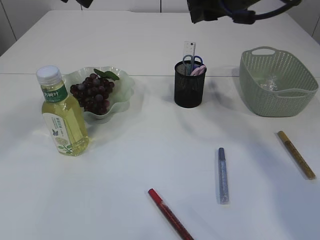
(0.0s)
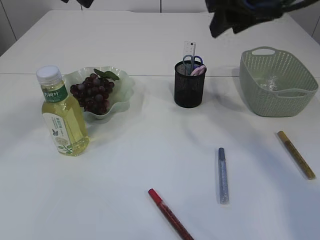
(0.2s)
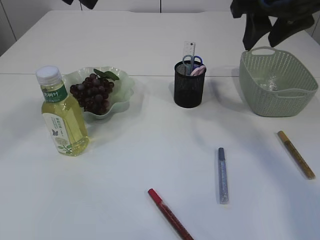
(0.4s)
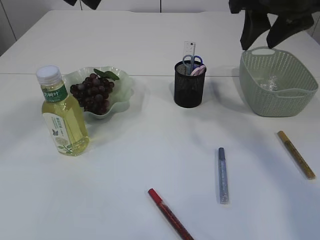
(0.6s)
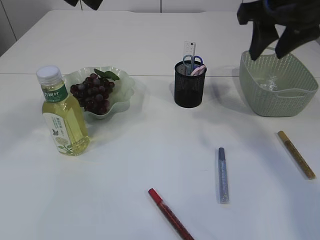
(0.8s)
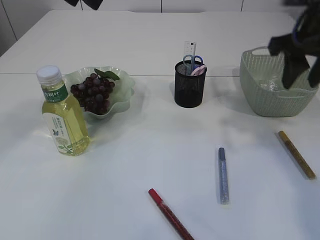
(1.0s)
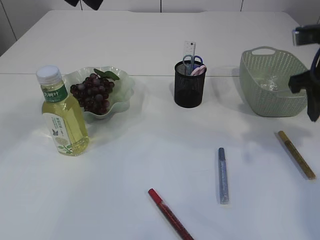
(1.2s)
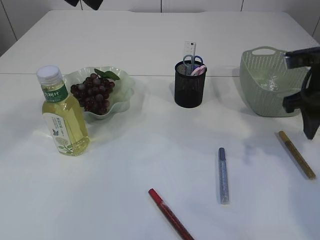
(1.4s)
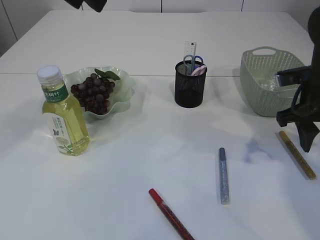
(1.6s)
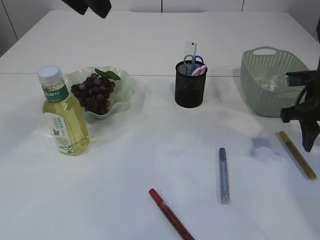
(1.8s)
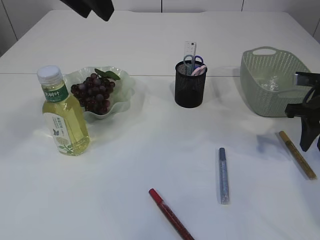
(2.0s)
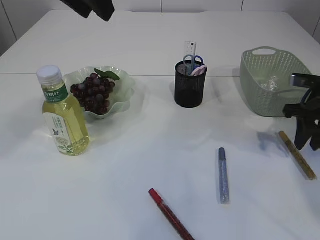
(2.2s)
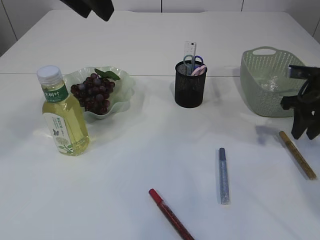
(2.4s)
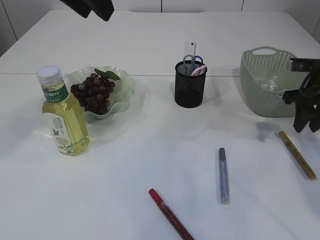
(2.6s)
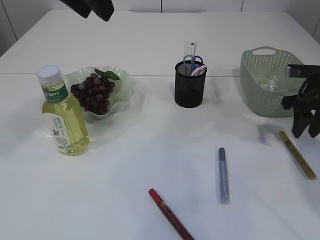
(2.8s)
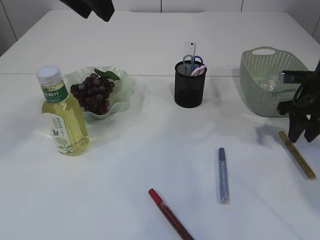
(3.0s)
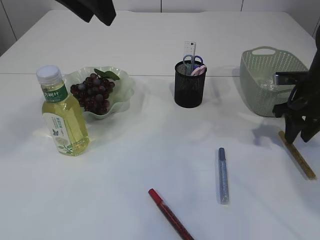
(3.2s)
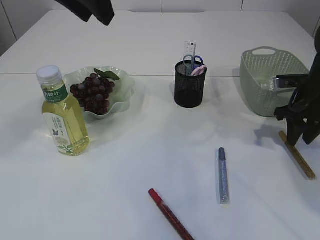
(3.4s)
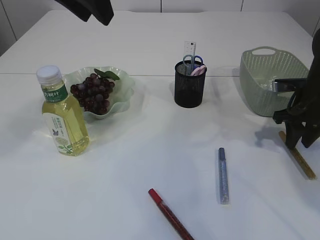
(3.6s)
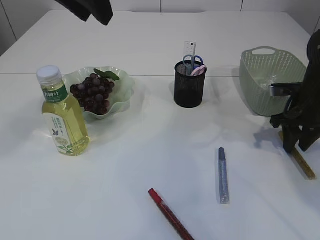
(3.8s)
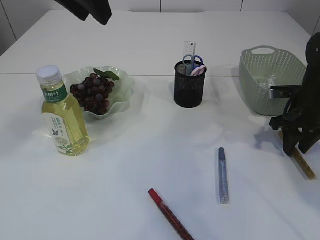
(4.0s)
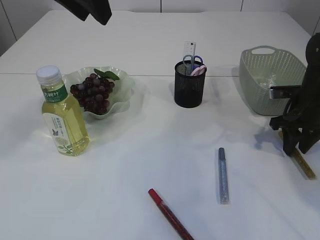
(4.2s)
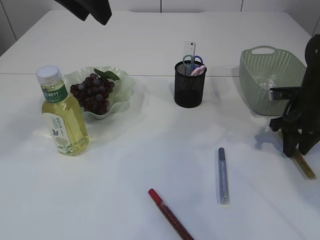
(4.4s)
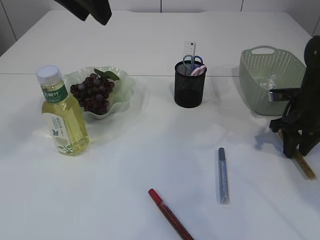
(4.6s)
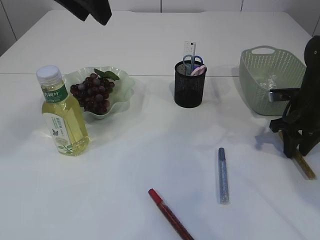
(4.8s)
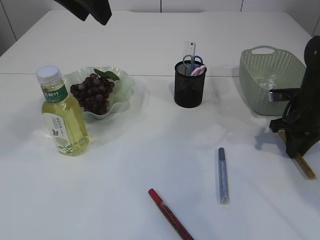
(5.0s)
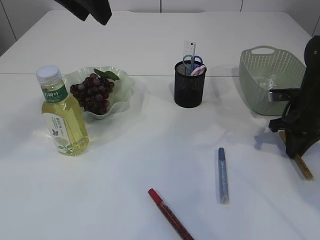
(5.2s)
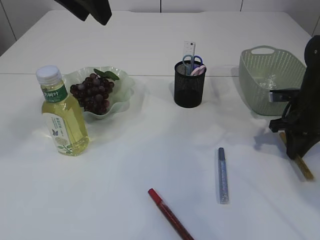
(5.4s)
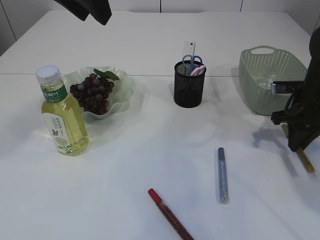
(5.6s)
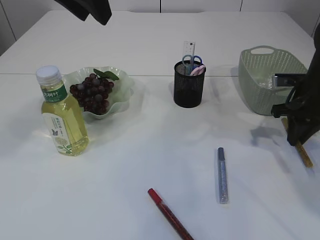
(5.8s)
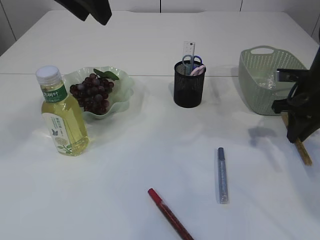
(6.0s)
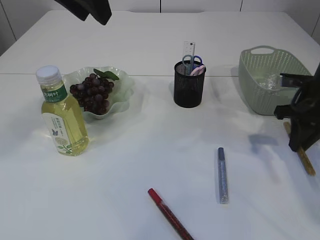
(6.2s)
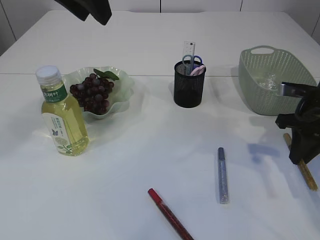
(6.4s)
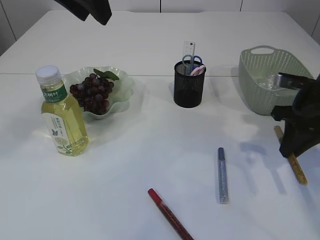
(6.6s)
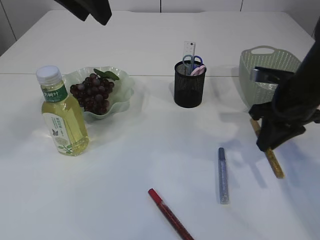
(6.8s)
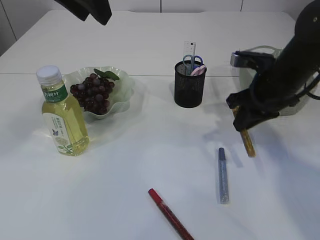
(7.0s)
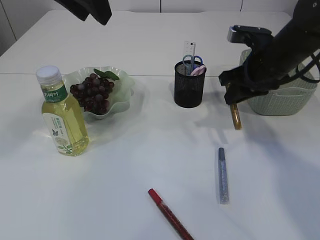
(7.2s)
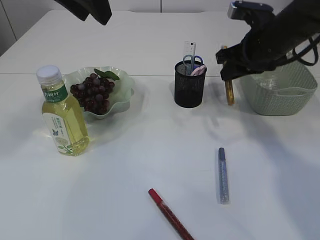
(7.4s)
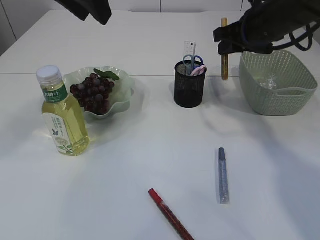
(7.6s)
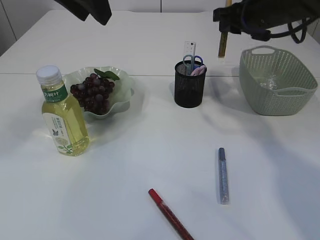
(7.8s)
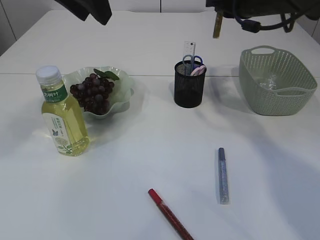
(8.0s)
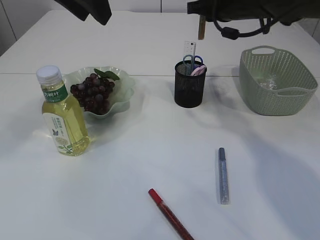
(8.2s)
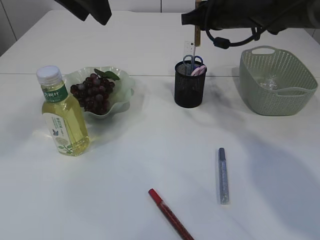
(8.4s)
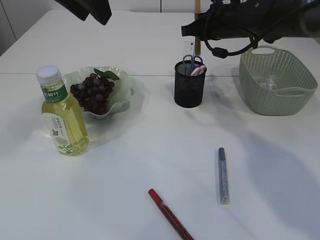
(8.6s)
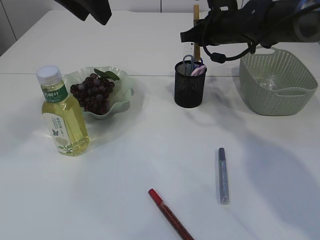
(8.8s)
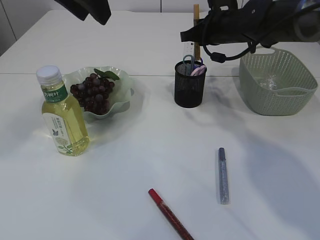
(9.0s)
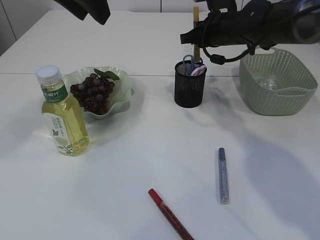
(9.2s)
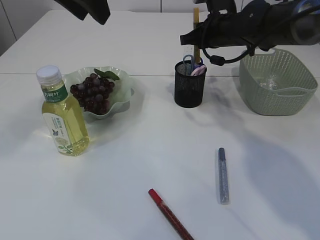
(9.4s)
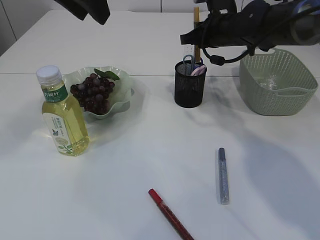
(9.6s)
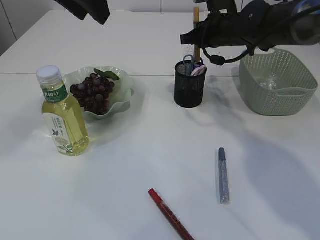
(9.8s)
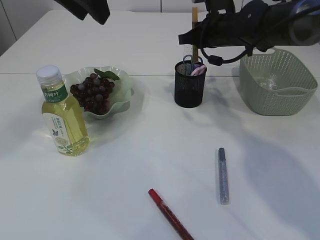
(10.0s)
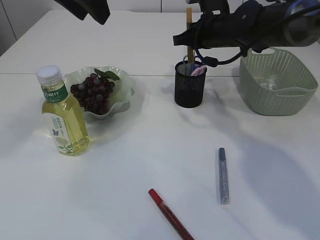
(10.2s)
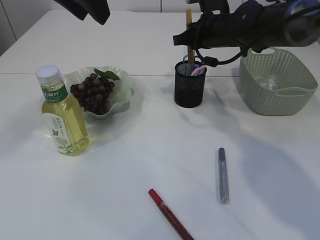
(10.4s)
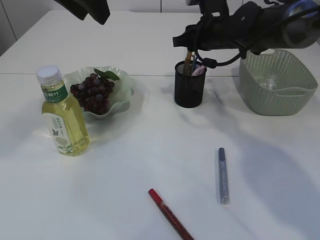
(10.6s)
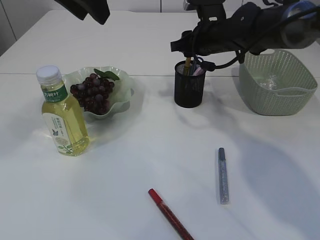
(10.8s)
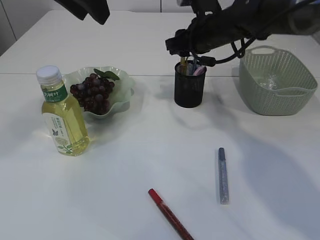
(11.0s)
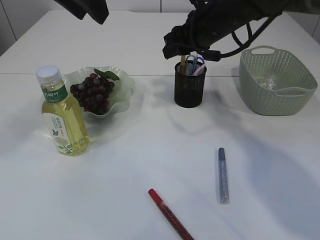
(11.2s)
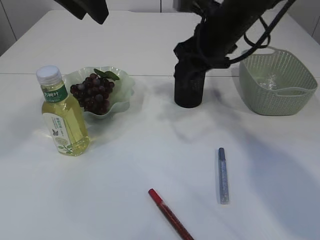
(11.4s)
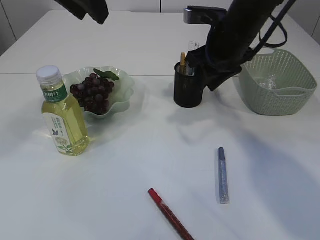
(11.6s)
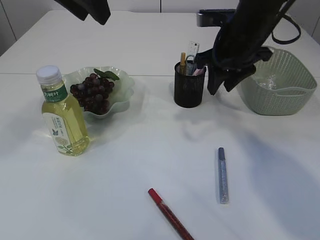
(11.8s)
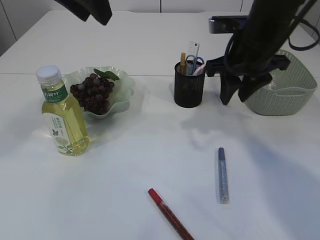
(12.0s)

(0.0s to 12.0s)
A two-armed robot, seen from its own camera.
Step, 0.0s - 5.8s: pick up the yellow glue.
Step, 6.0s - 11.6s: place the yellow glue into the pen holder.
0.0s - 1.6s: The right gripper goes roughly 20 cm downward, to the right and backward.
1.6s - 3.0s: The right gripper heads forward and to the right, covering some 10 cm.
3.0s - 4.4s: The grippers stay close to where they were, moving slightly.
4.4s - 6.0s: The right gripper closes.
6.0s - 7.6s: The right gripper moves to the left and upward, some 15 cm.
7.6s - 9.0s: The right gripper shifts some 5 cm forward.
9.0s - 10.4s: The grippers make only small movements.
10.4s - 12.0s: The right gripper moves backward, approximately 10 cm, and opens up.

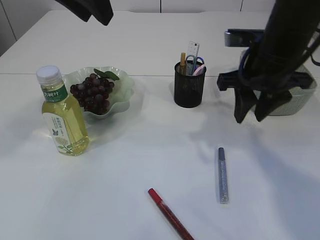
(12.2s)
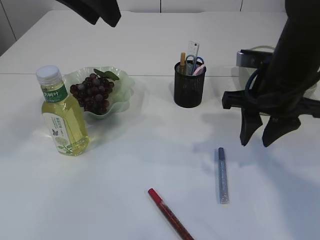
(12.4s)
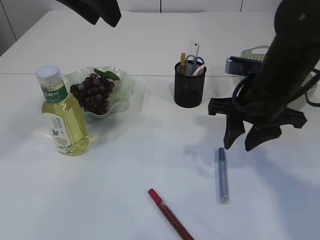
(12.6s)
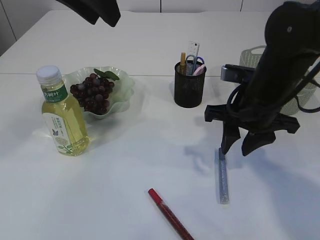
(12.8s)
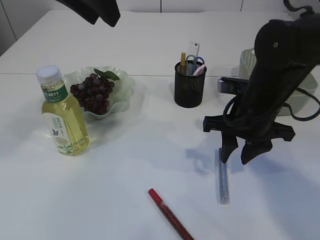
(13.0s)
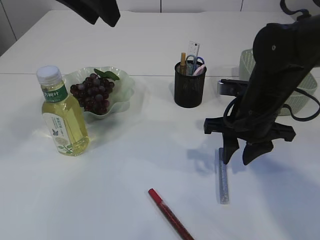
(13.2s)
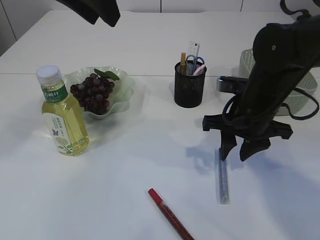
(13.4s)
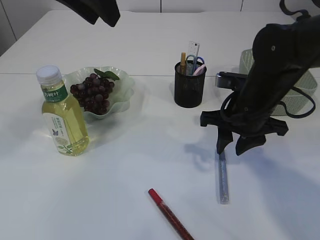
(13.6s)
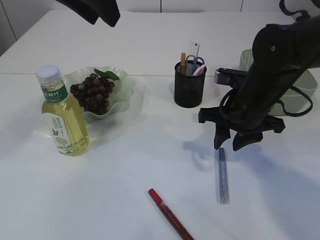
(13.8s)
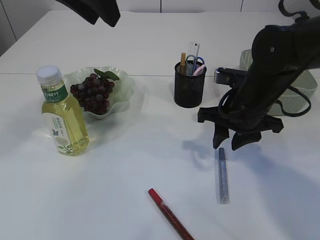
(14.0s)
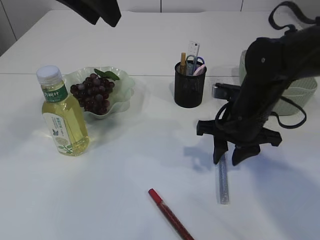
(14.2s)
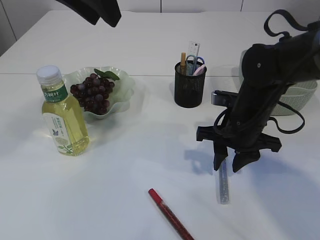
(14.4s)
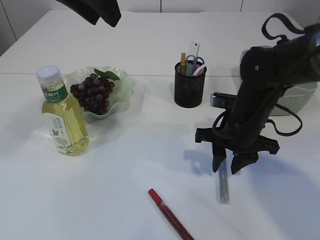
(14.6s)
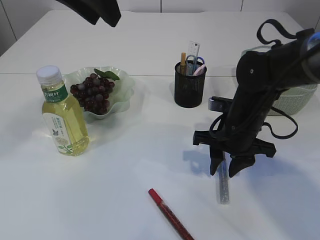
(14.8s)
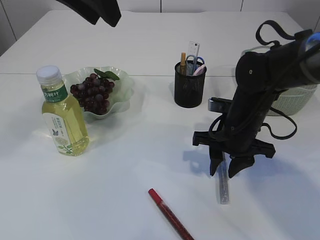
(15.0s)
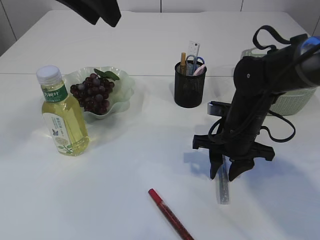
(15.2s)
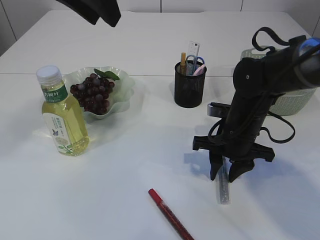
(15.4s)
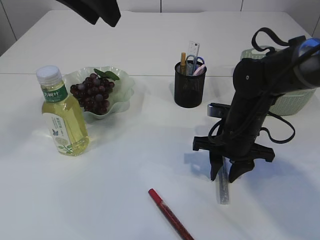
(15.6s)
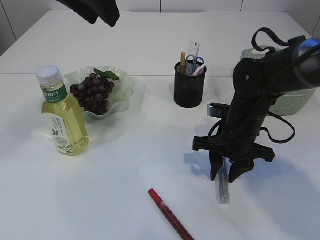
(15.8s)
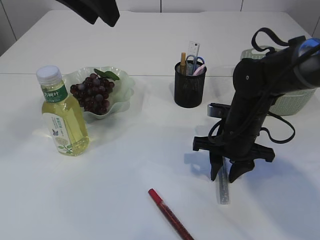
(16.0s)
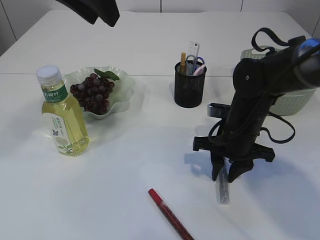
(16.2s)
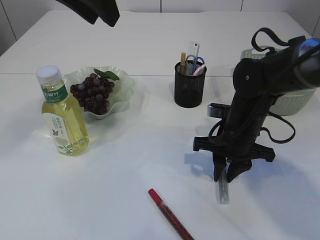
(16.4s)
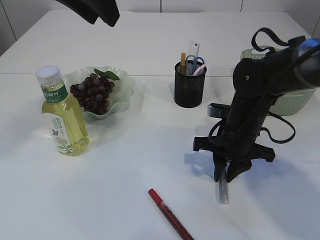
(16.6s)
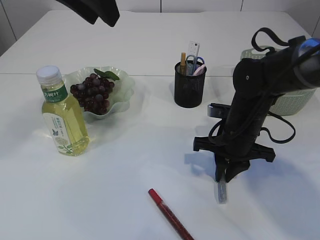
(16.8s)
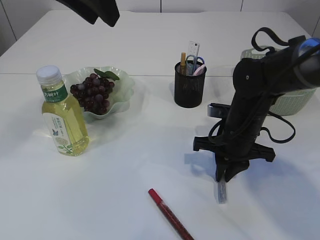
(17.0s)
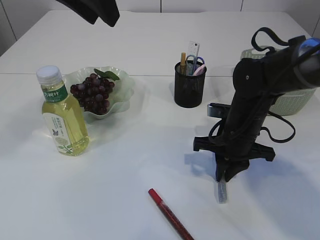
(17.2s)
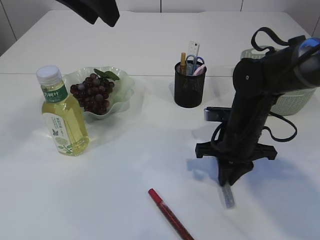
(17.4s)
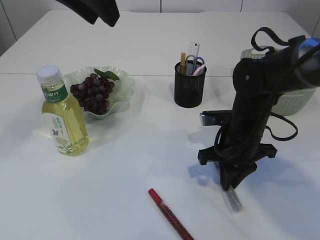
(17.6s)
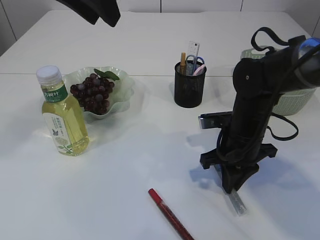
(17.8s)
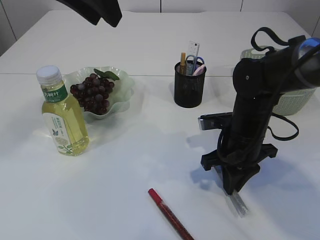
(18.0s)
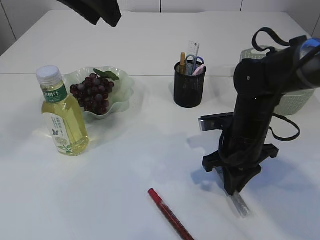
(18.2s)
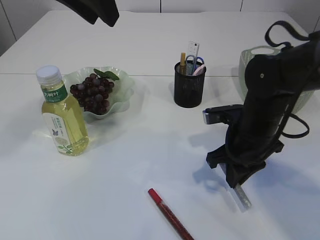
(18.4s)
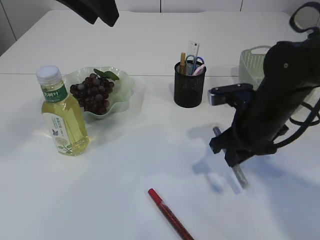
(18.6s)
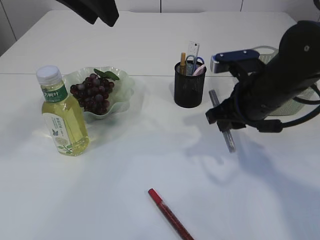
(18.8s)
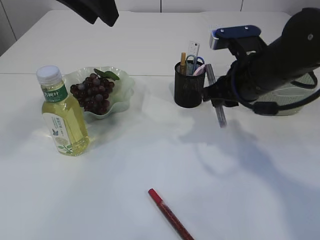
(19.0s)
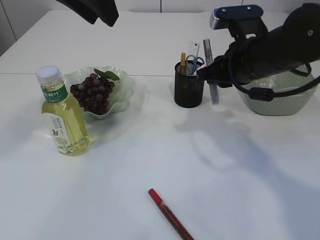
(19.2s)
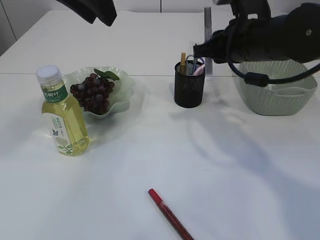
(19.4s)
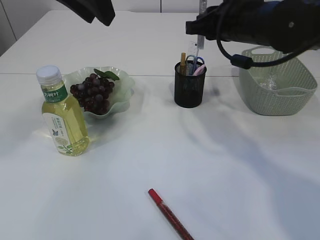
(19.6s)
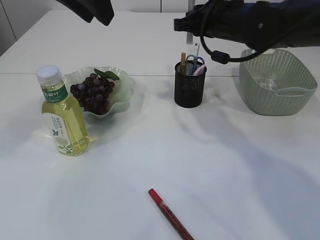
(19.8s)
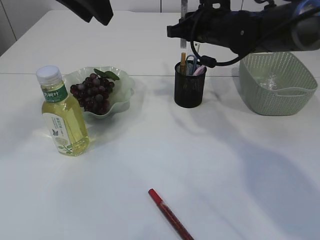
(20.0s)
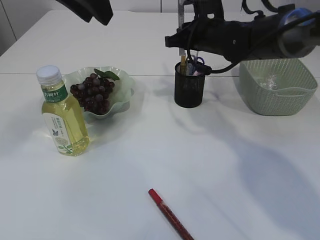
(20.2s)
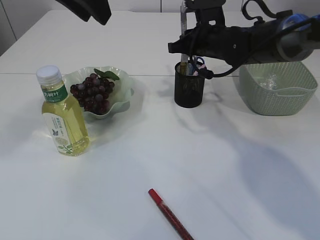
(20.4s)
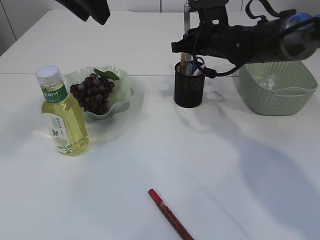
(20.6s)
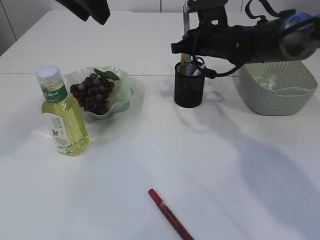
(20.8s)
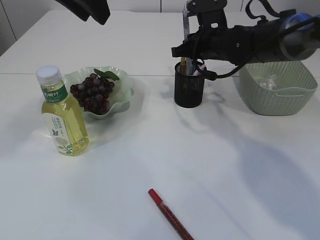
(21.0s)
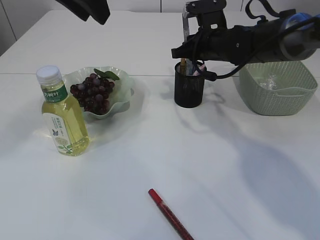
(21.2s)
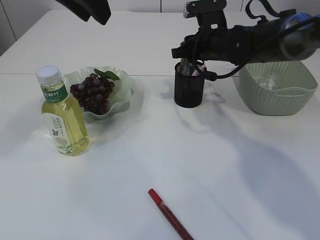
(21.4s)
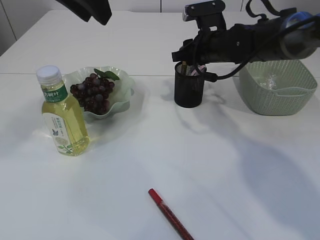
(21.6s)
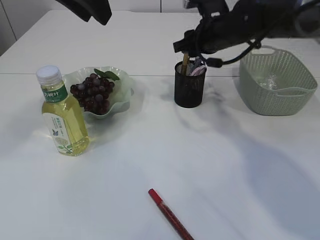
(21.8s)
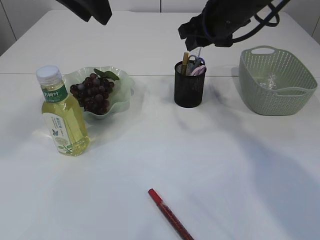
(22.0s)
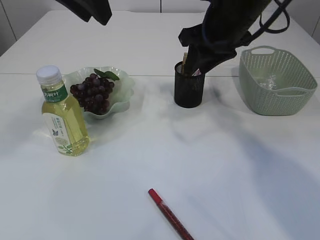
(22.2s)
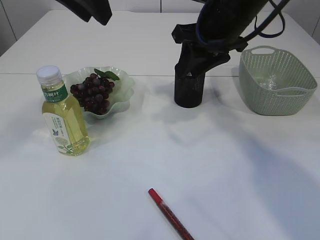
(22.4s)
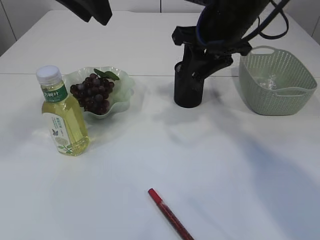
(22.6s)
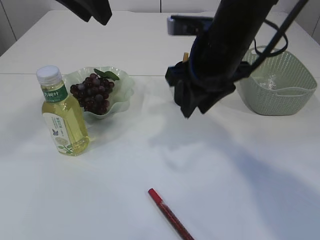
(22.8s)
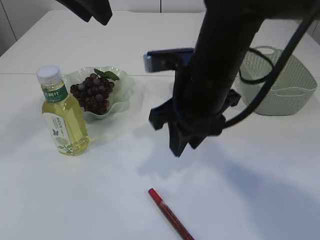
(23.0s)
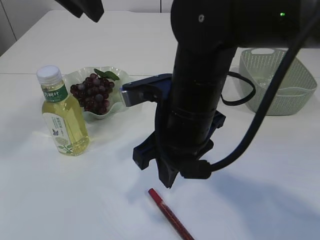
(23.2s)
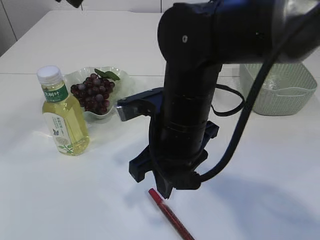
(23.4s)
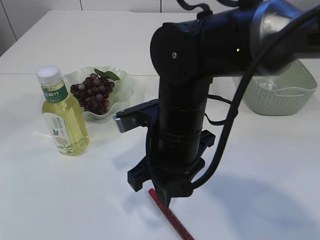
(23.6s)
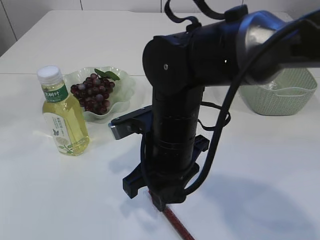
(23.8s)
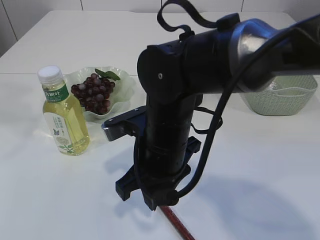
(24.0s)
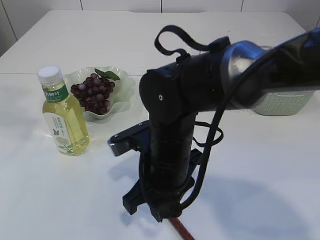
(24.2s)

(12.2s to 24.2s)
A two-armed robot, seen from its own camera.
Step, 12.2s - 18.6s: pick up the silver glue.
Step, 18.8s - 21.8s: place the silver glue into the pen holder.
12.2s - 13.8s: The right gripper travels downward by roughly 10 cm.
13.8s - 15.2s: The right gripper is displaced downward by about 5 cm.
15.2s - 16.6s: Both grippers stay put.
18.2s - 19.8s: The right gripper goes some 20 cm upward and forward.
19.8s - 21.2s: The right gripper heads downward, covering roughly 5 cm.
21.2s - 22.6s: The right gripper is displaced upward and backward by approximately 15 cm.
22.6s - 24.2s: The right gripper is displaced downward, backward and to the left by some 20 cm, while the left gripper goes some 15 cm to the left.
